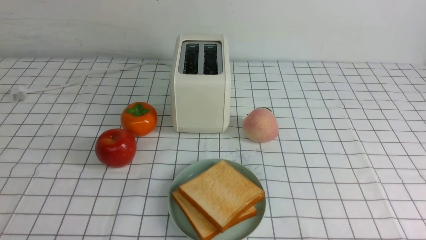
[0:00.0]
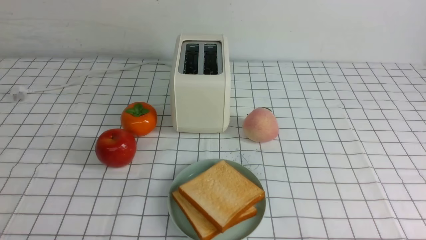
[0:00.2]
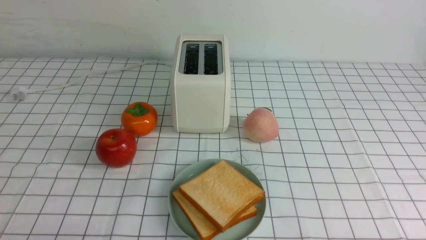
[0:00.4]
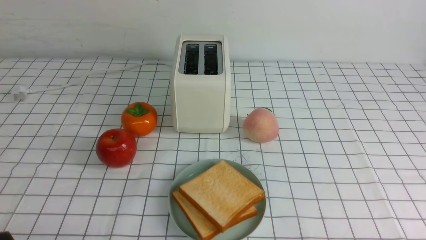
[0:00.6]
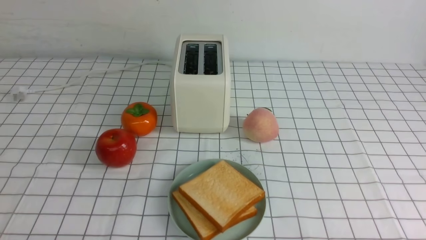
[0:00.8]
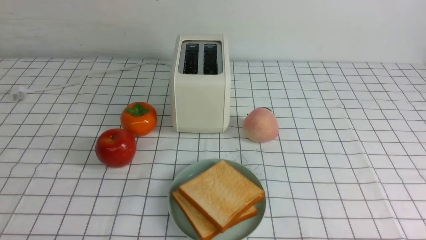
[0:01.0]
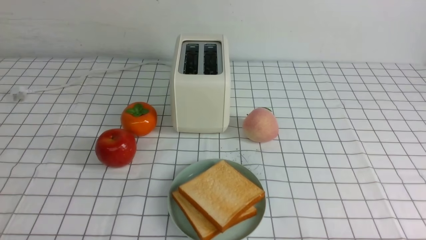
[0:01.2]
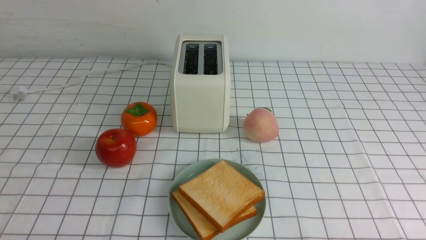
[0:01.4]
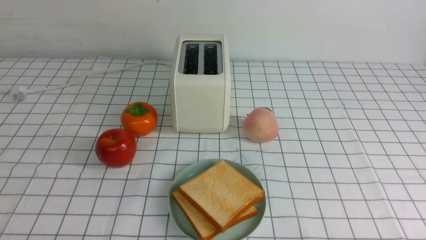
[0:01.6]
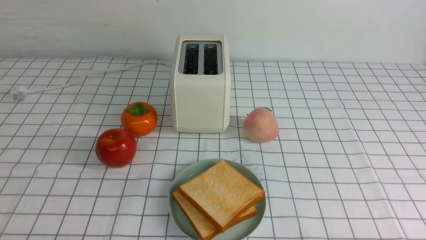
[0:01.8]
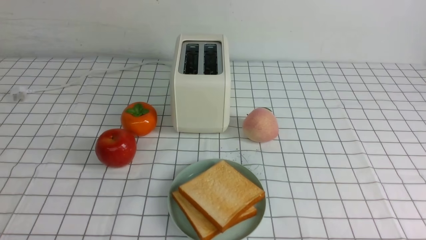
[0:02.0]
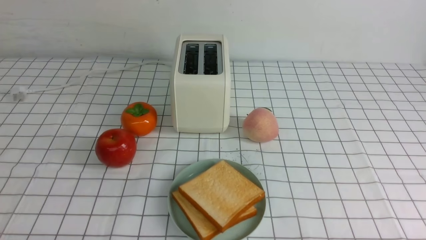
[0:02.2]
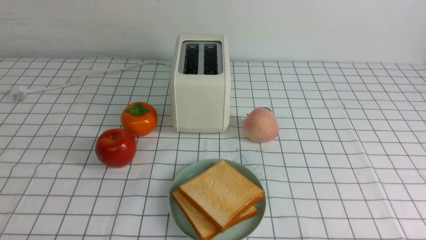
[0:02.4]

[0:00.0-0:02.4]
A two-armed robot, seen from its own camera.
Task of the whole recording: take toasted bread from bread machine on white checkered table place on plate.
0:01.2 to 0:02.4: The two grippers keep their place.
